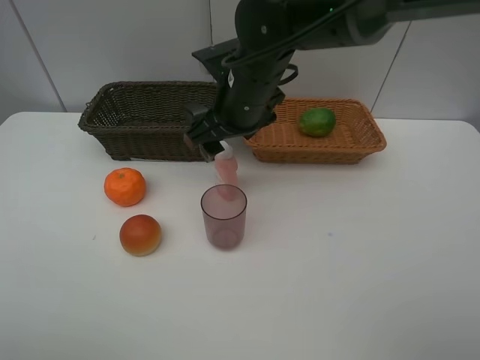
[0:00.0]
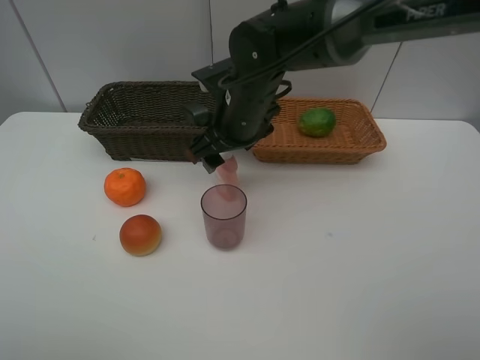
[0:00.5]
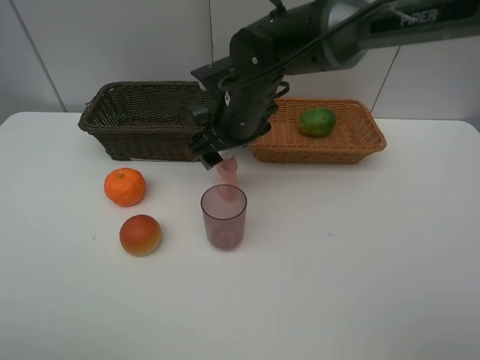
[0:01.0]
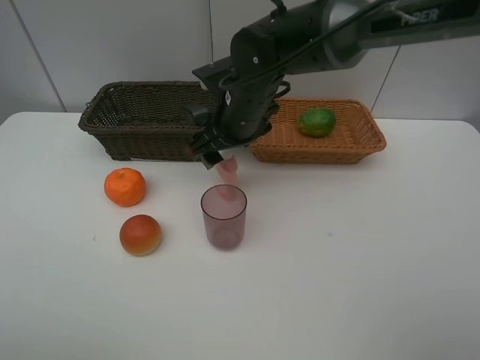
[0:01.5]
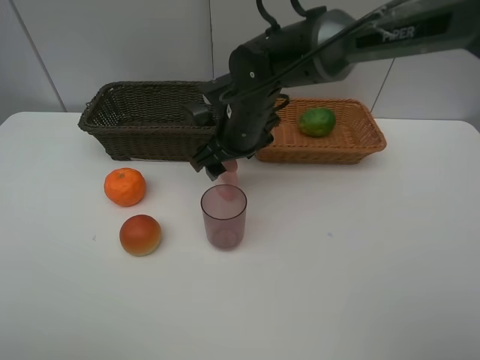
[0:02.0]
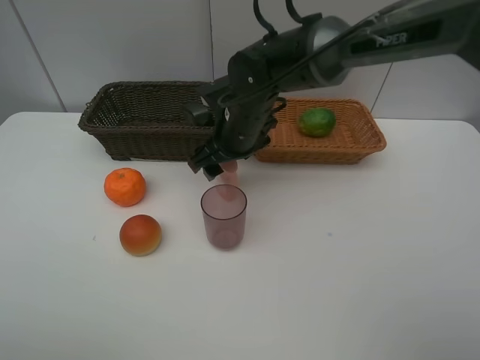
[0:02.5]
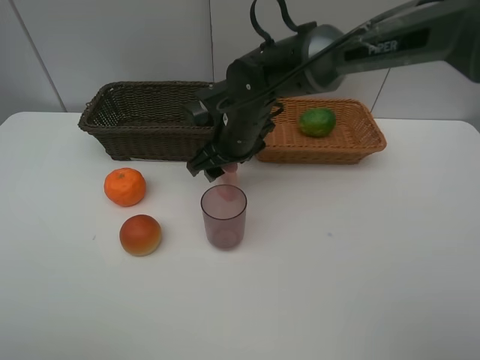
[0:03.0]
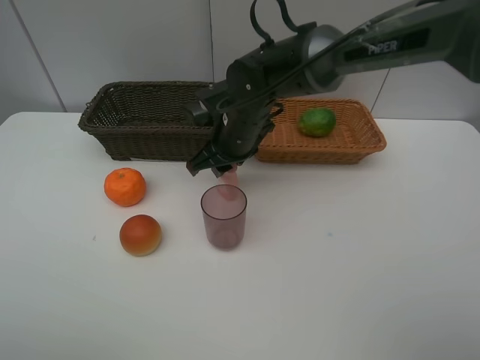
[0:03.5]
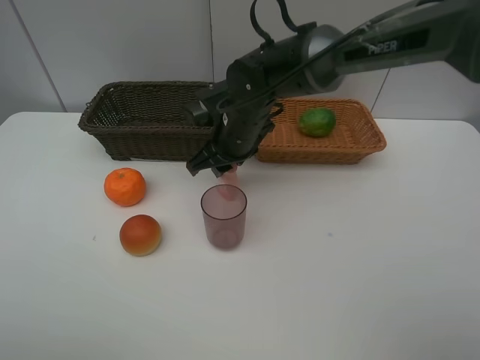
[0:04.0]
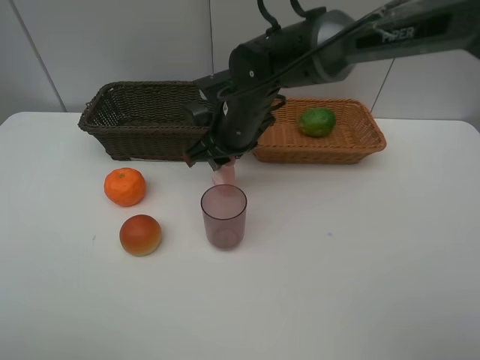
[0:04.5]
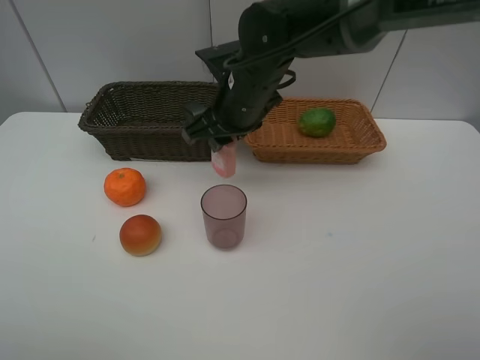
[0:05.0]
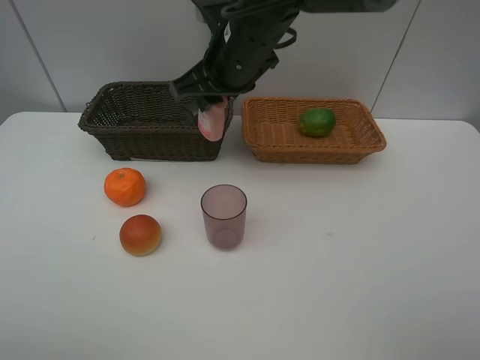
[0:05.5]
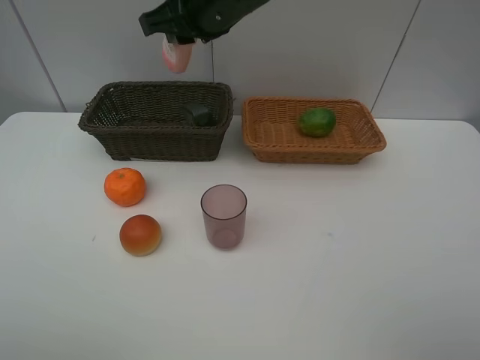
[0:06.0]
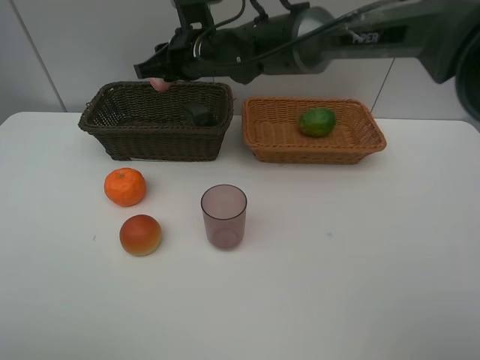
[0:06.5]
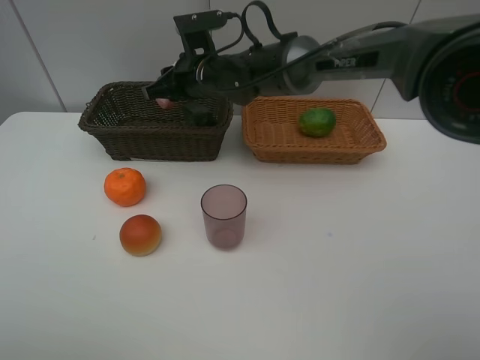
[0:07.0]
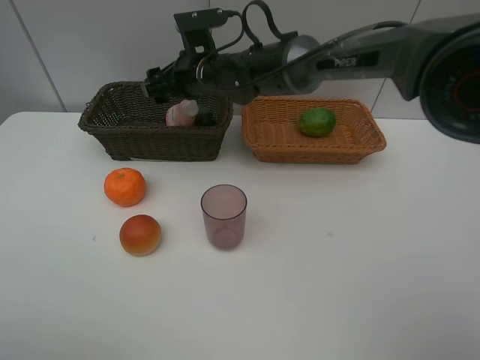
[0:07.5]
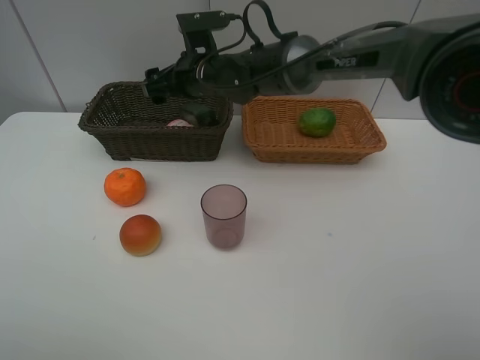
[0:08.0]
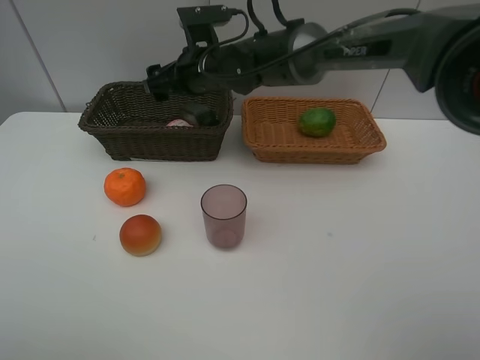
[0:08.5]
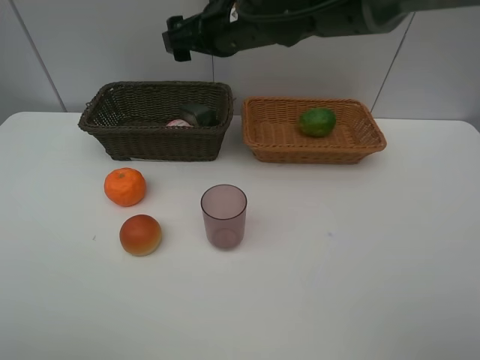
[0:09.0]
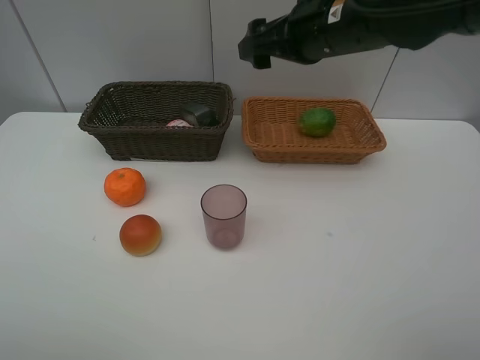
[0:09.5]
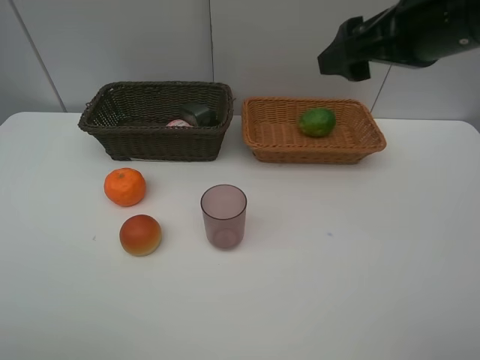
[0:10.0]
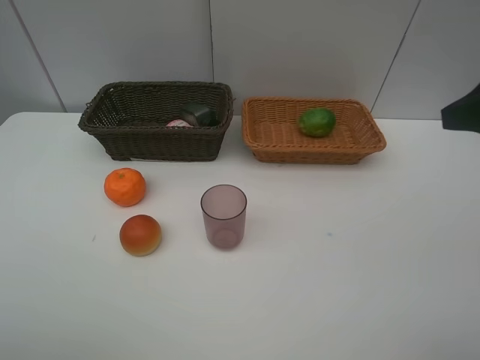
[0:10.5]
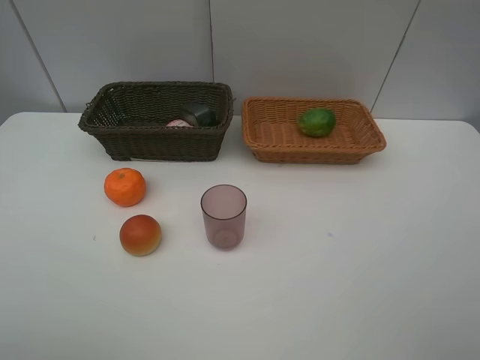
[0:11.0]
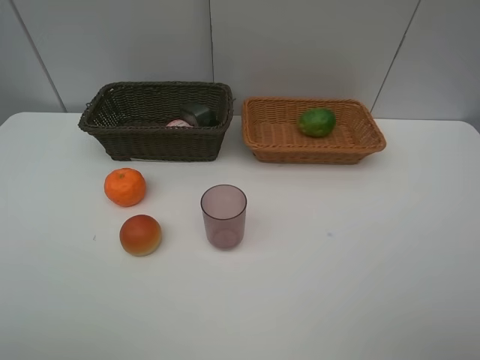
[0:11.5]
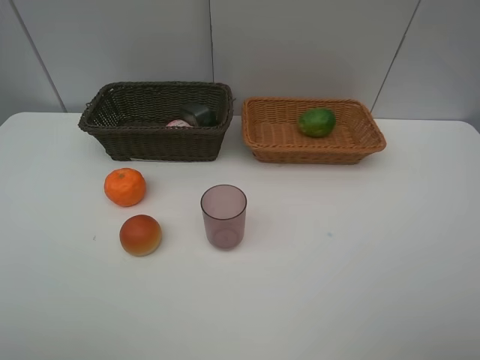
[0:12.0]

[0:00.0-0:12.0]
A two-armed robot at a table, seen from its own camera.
Task of the whole recording: place multiple objects separately in different baskets.
0:00.0 to 0:02.0: The right gripper travels downward by some 5 cm.
0:02.0 to 0:04.0: The right gripper closes up.
0:04.0 to 0:06.0: The right gripper travels upward by roughly 15 cm.
0:06.0 to 0:08.0: The right gripper goes roughly 10 cm downward, and opens.
0:08.0 to 0:10.0: The right gripper shifts some 35 cm to the right, backward and upward.
0:10.0 to 0:12.0: The right gripper goes approximately 25 cm backward and to the right.

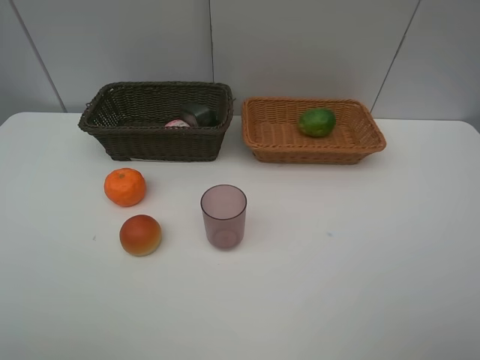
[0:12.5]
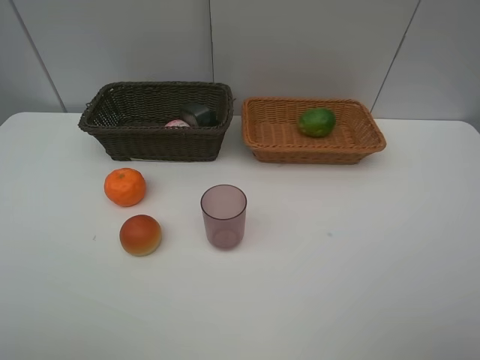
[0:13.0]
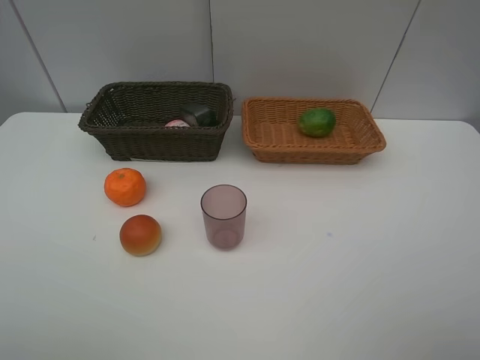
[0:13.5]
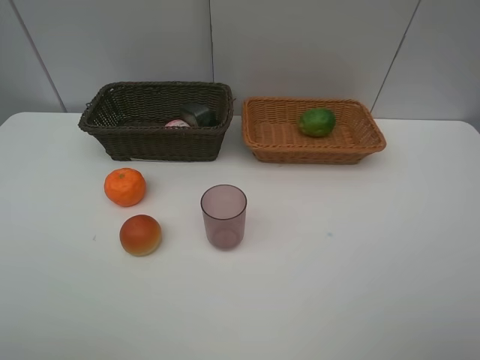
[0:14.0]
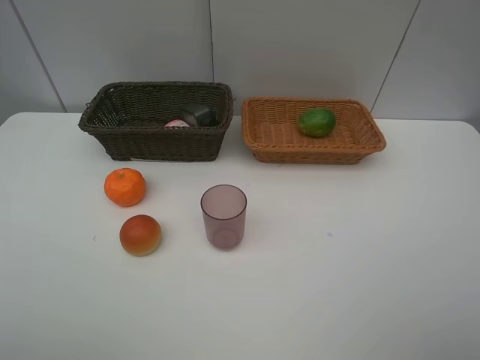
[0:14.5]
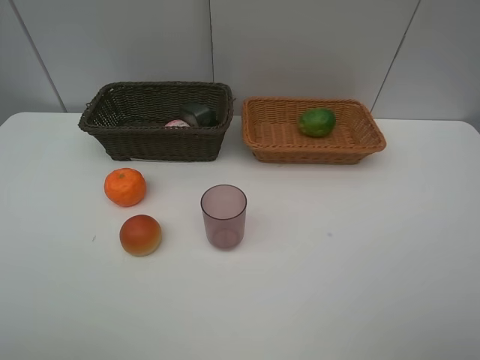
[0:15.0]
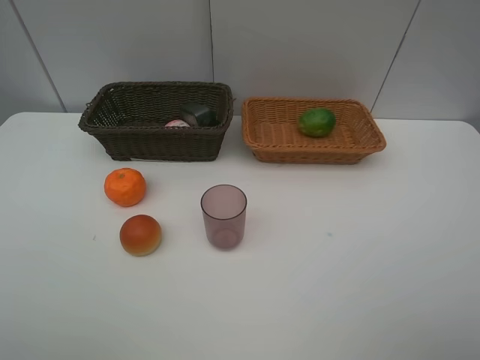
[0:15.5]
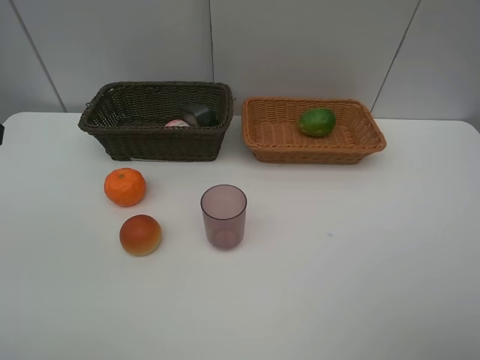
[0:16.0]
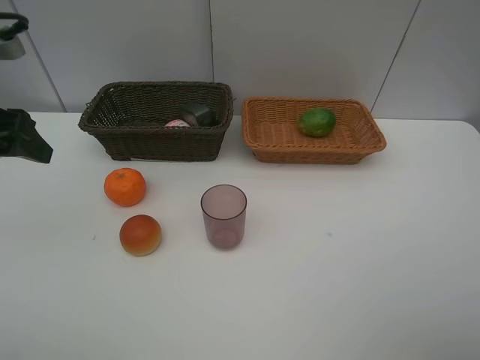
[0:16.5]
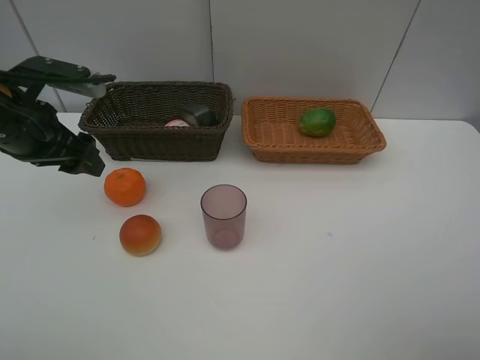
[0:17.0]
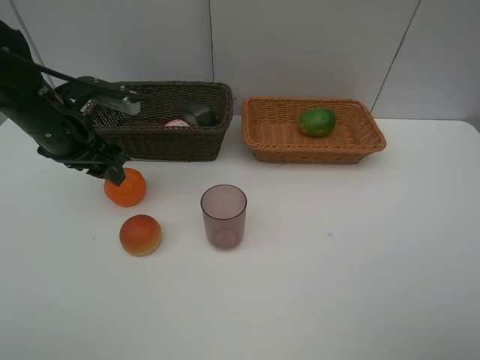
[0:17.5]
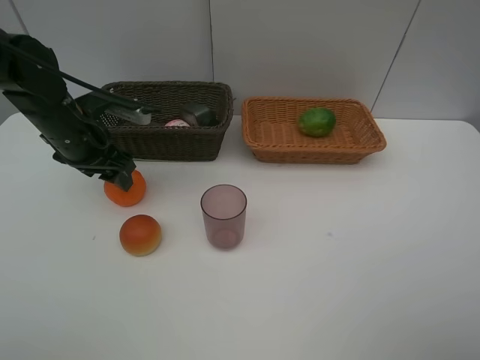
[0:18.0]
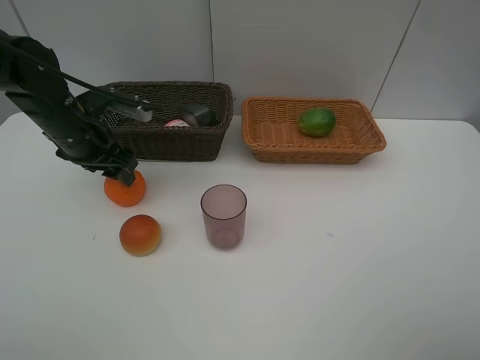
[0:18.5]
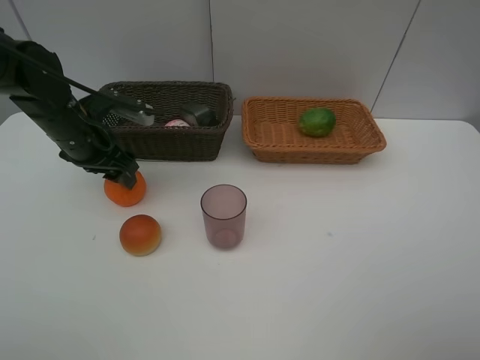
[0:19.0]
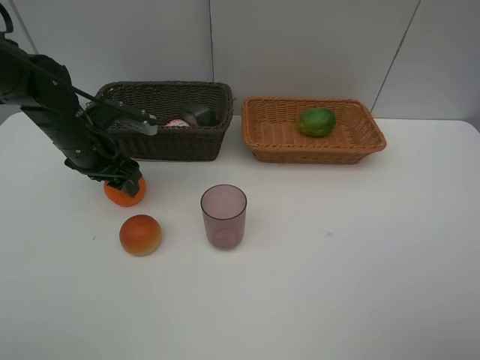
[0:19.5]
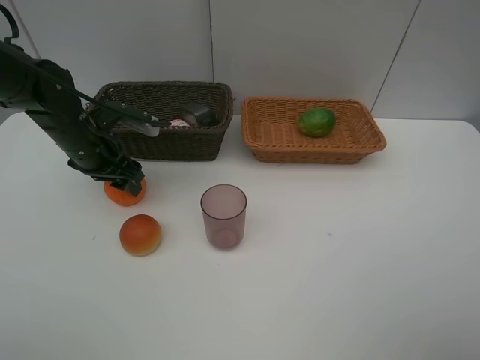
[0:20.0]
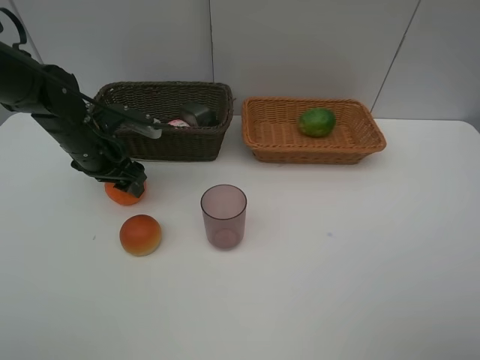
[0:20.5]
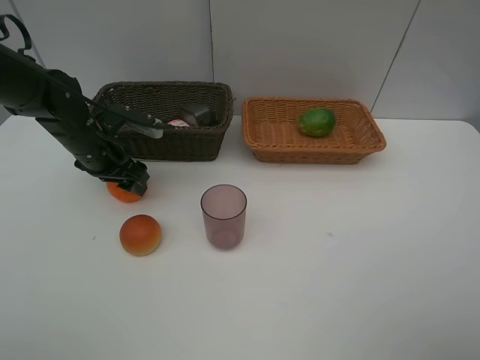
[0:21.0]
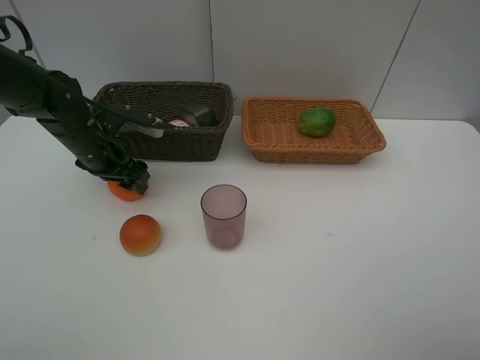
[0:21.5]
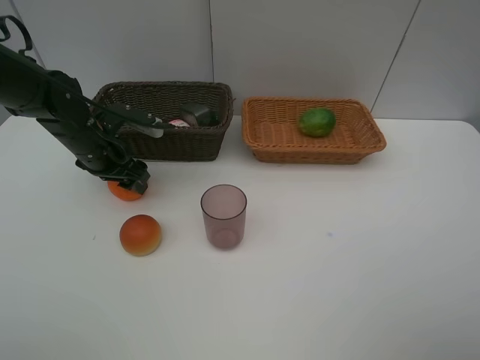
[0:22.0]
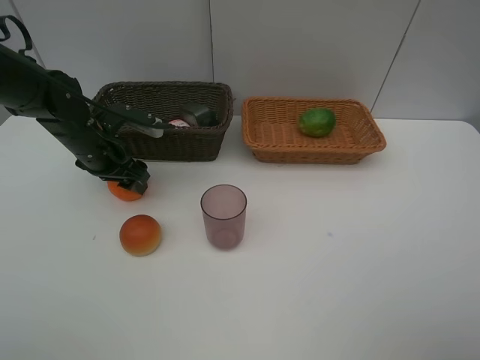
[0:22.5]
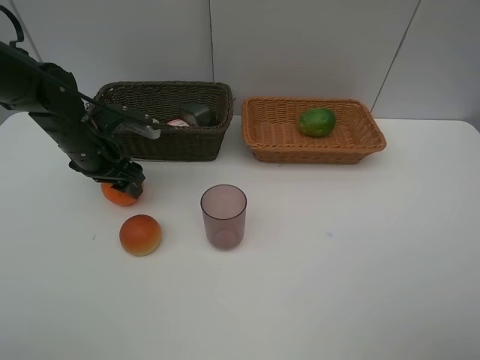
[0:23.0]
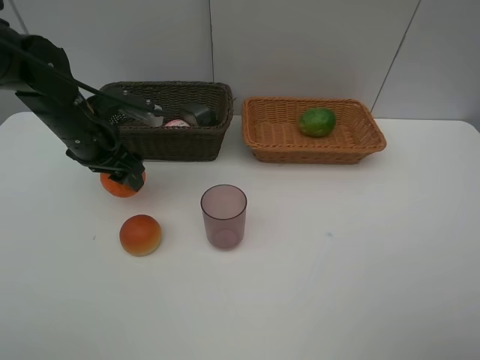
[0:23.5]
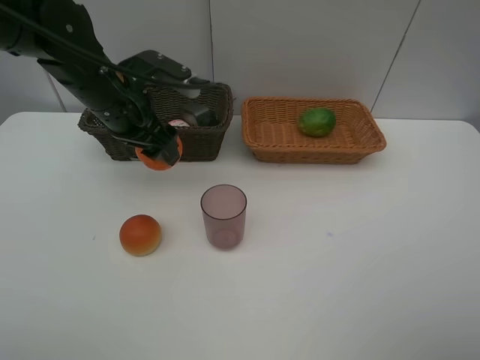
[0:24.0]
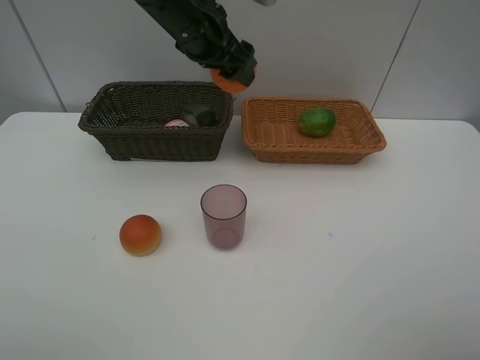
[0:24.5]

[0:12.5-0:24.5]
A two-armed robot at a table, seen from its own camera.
Task of the whole recording: place multiple objects separately in different baskets.
0:12.5 to 0:14.5: Both grippers stay put.
0:14.5 to 0:16.5: The left gripper moves forward, roughly 25 cm.
0:16.5 to 0:18.5: The left gripper is displaced forward, downward and to the right by roughly 15 cm.
0:18.5 to 0:20.5: The grippers make only small movements.
0:20.5 to 0:22.5: The two grippers keep their place.
0:22.5 to 0:24.5: The left gripper travels to the right and upward by approximately 25 cm.

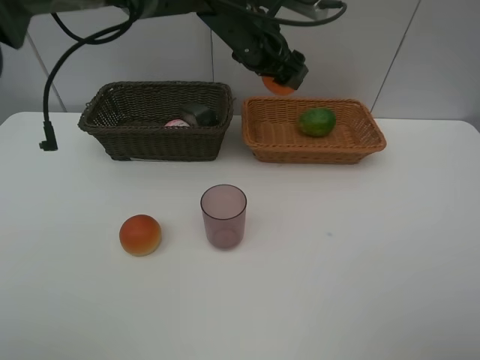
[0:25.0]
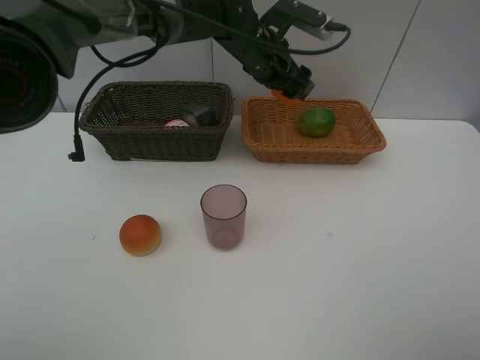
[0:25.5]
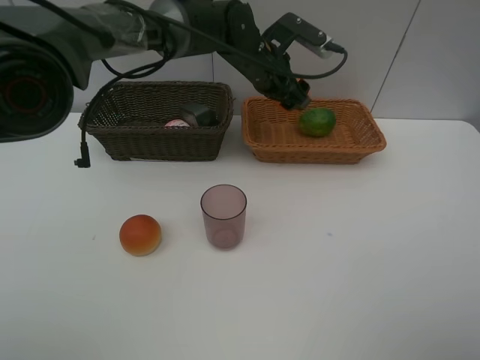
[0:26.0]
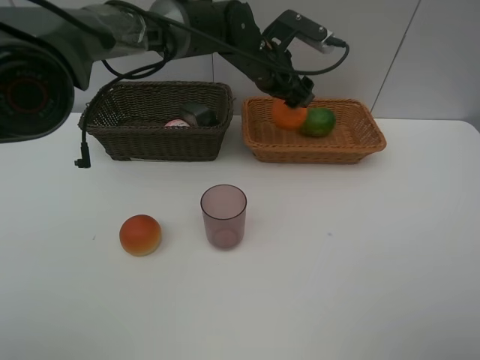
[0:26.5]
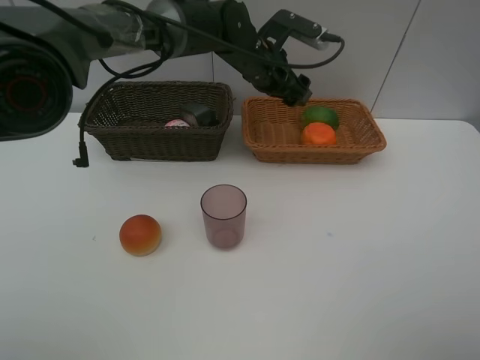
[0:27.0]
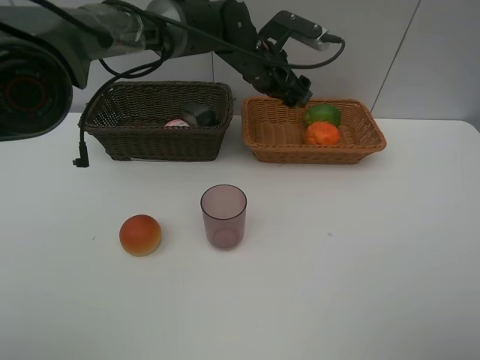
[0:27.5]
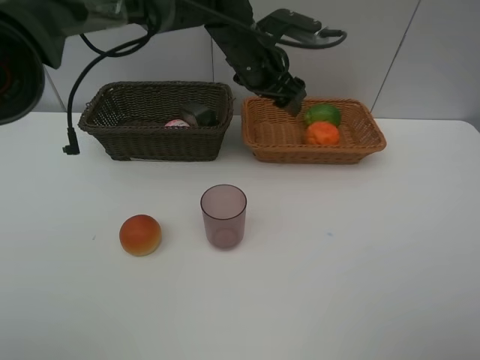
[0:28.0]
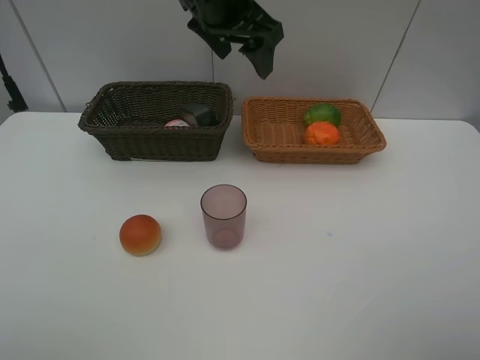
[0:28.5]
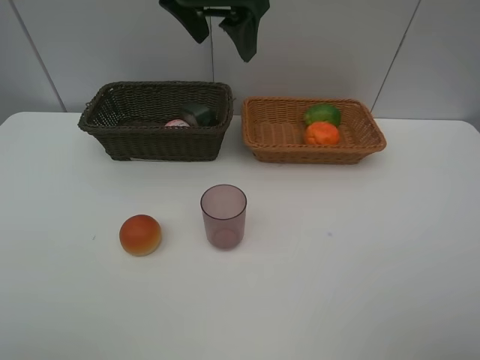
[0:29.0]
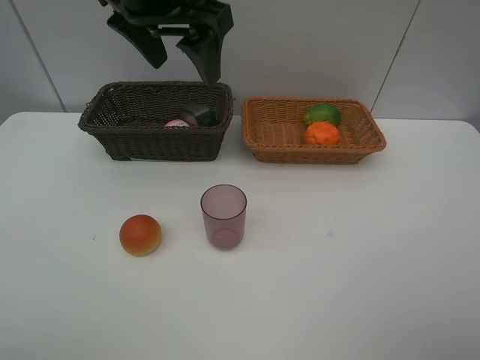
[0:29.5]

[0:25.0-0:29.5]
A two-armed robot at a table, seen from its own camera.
Task of the whole recording: place multiple objects separately in different baskets.
0:25.0 to 0:27.0: There are only small adjustments of the grippers.
0:27.0 to 0:29.5: The left gripper moves upward, backward and to the left, roughly 25 cm.
